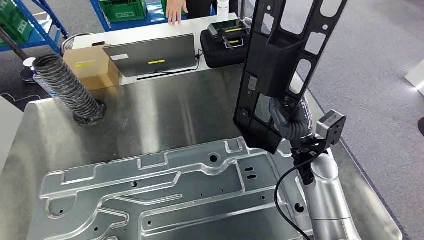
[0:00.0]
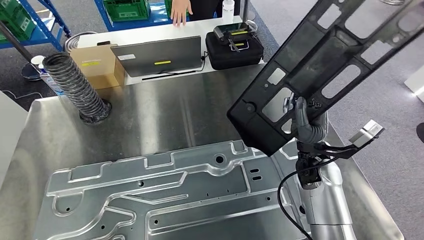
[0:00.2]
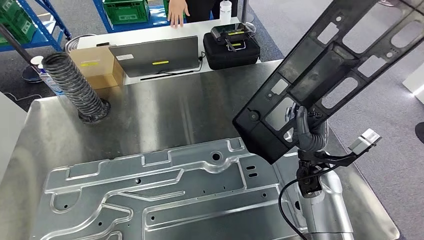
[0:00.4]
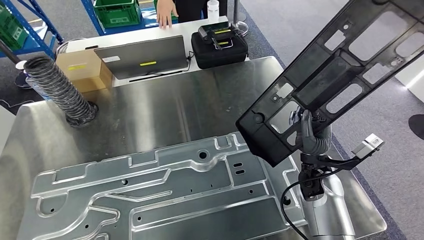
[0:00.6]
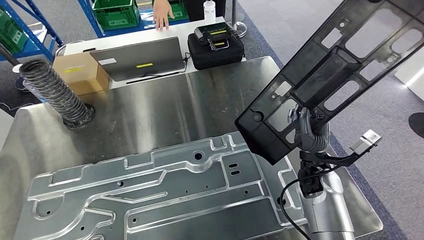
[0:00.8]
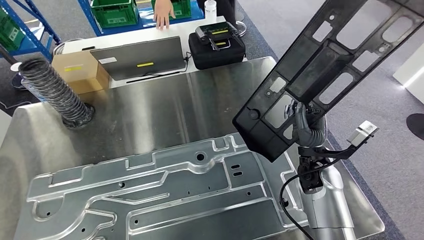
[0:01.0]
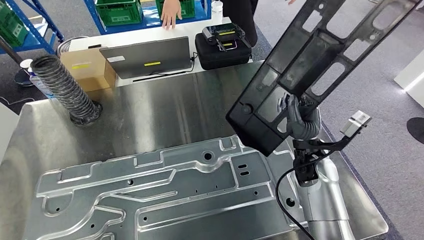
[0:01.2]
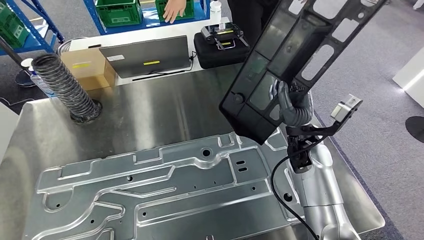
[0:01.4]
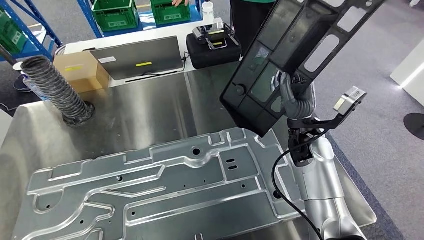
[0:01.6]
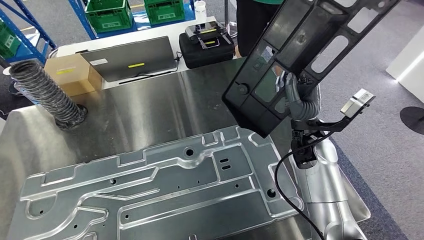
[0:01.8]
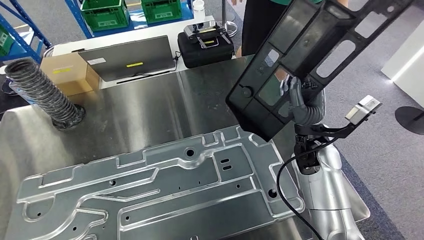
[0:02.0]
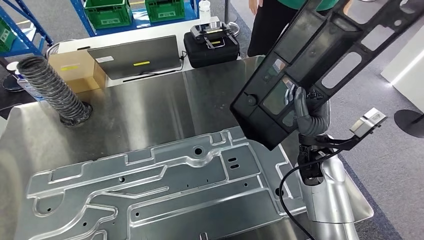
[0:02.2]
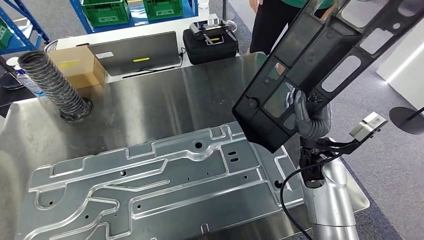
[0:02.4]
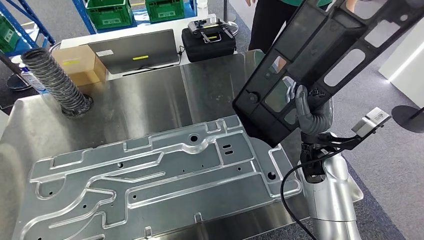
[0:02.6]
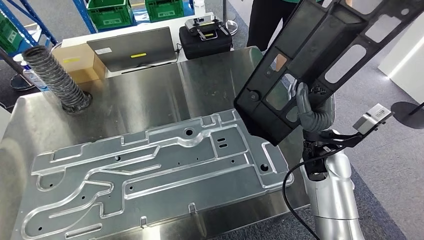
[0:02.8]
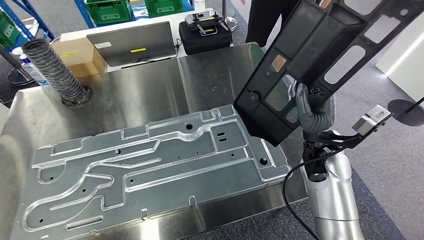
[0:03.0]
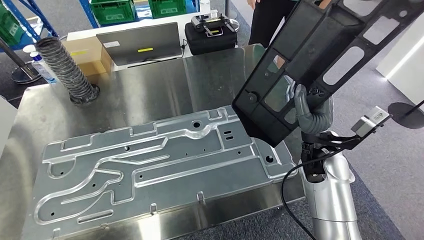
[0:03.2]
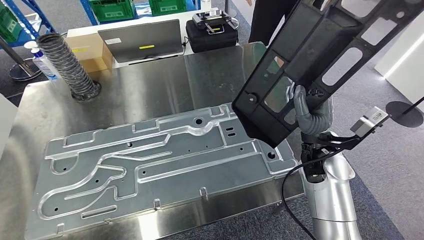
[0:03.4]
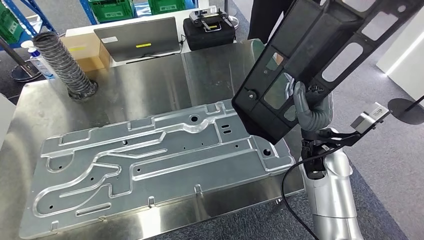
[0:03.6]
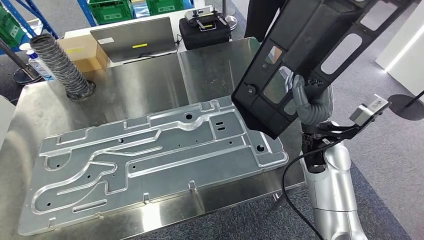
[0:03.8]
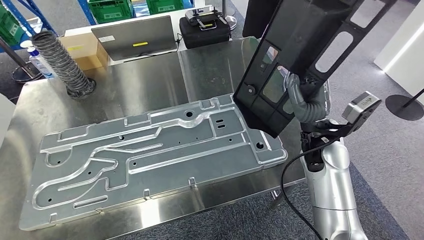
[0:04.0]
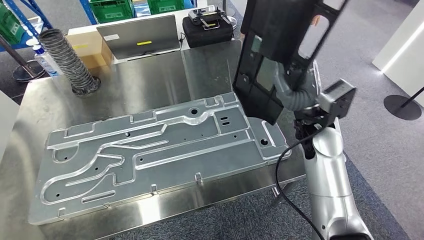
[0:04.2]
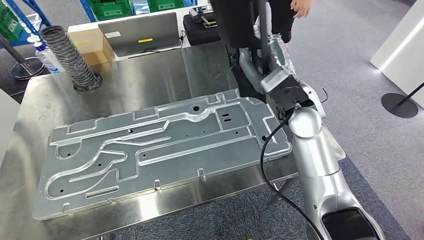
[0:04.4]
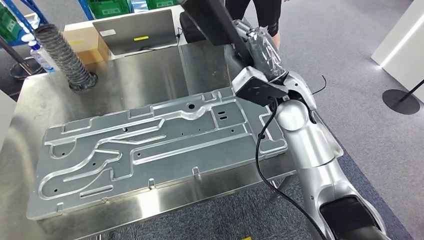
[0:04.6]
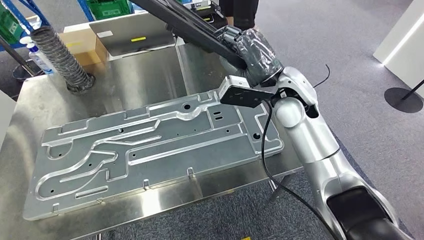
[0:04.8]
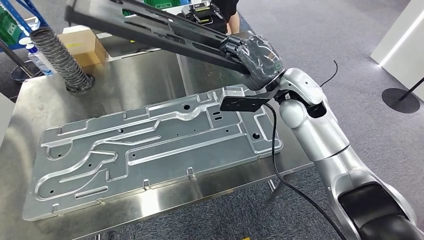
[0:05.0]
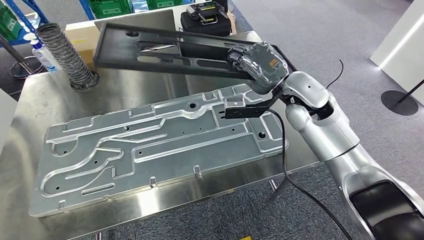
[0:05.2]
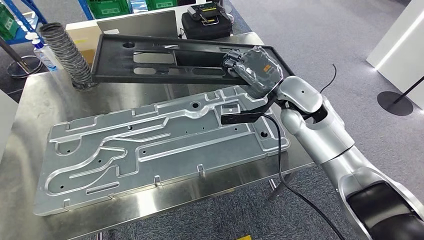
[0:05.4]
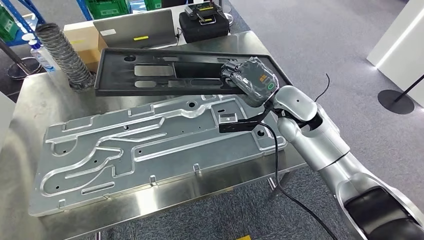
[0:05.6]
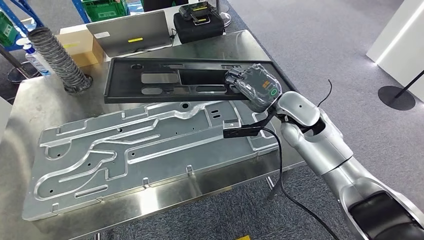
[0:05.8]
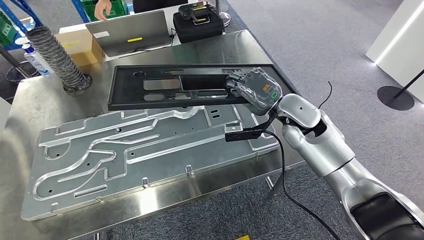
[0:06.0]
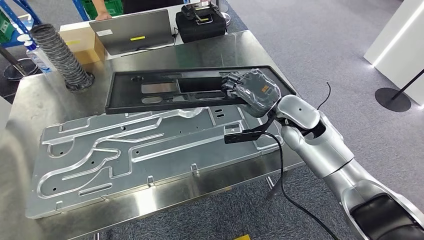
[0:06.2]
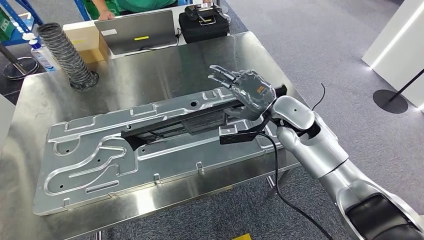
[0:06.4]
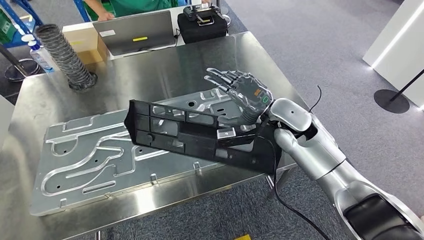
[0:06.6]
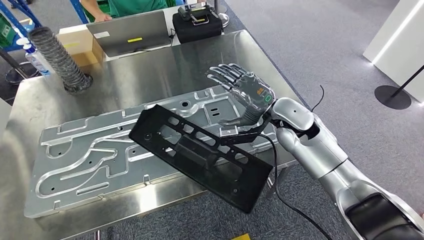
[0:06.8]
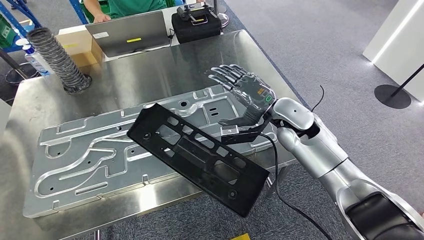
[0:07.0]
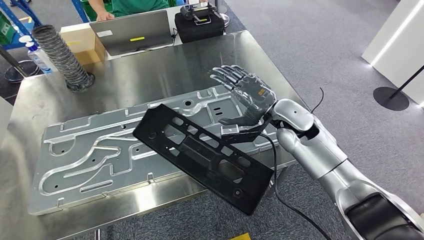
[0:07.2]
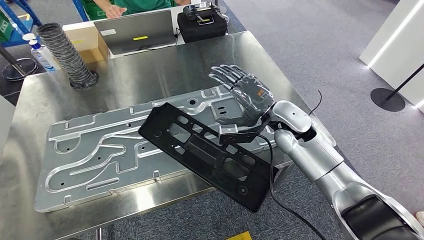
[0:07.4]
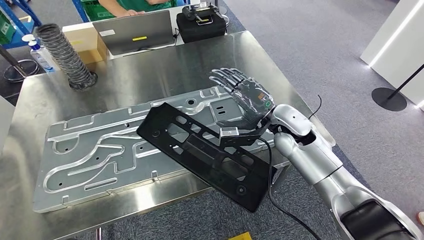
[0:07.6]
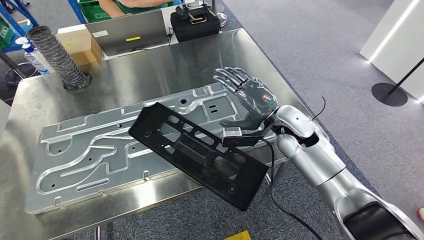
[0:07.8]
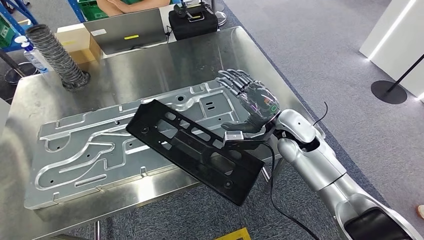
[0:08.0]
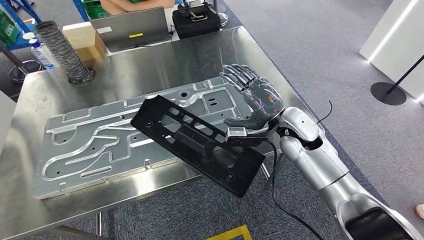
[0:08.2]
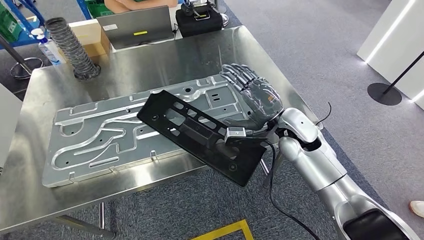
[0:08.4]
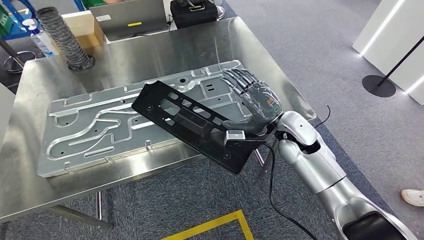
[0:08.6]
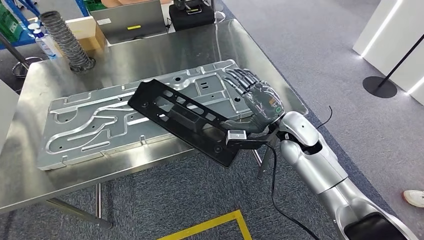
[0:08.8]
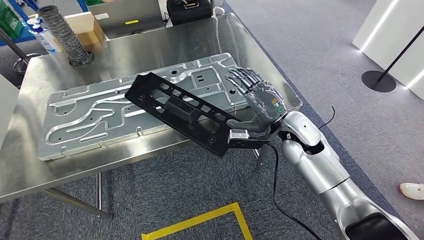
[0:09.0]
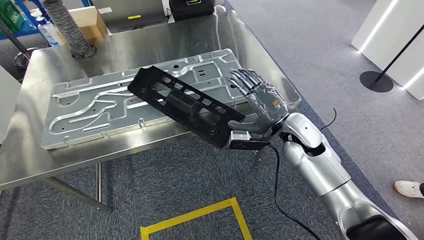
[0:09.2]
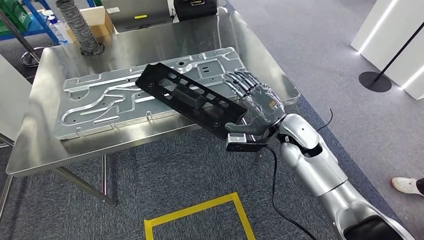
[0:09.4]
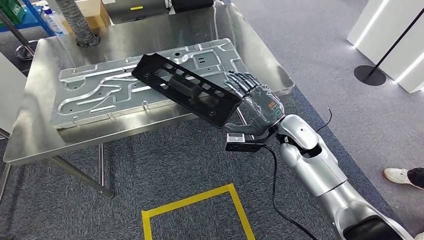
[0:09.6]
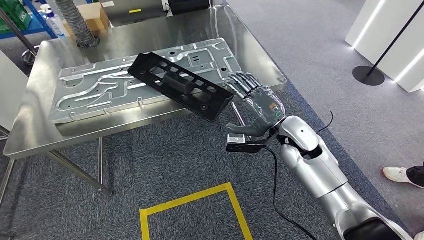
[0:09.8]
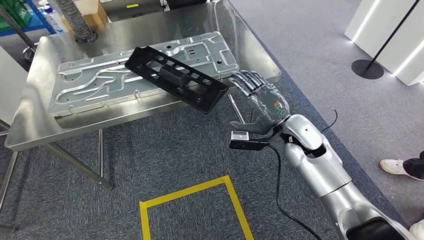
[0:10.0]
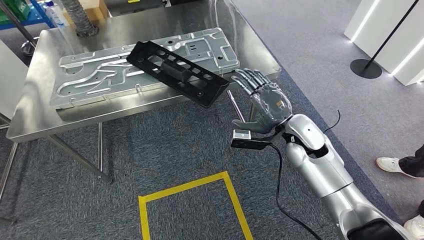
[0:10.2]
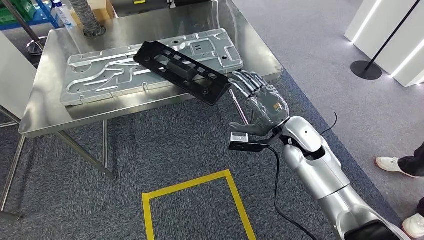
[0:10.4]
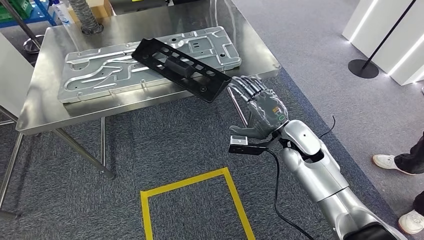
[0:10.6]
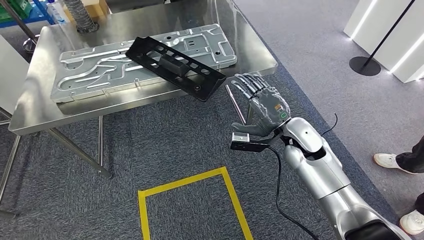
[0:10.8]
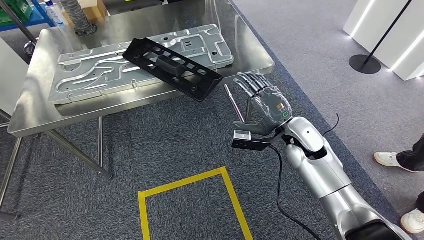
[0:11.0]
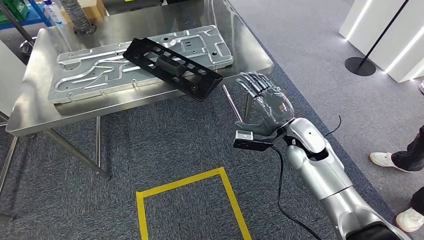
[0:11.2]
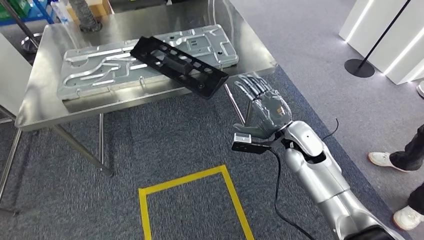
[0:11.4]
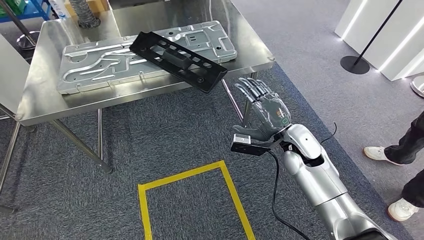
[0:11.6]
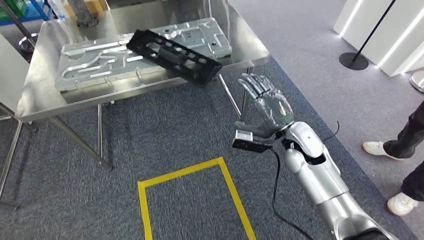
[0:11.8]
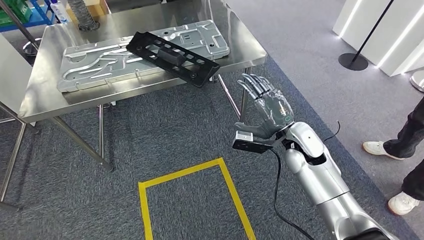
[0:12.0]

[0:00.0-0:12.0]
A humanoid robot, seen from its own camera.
Step, 0:00.8 to 0:08.2: Insert the large material into the corresponding slot on the workbench.

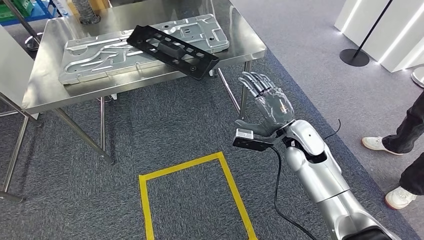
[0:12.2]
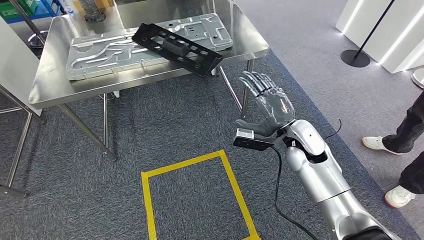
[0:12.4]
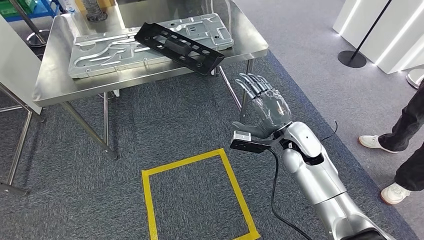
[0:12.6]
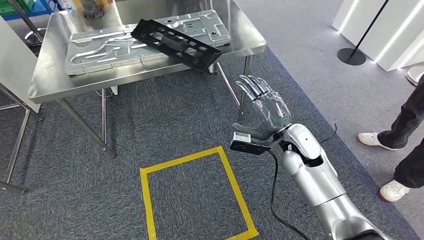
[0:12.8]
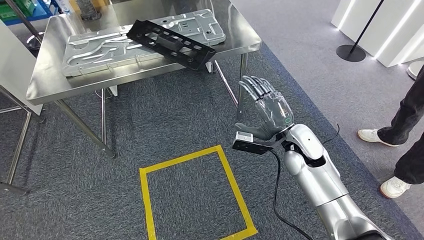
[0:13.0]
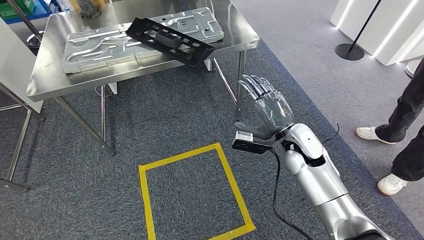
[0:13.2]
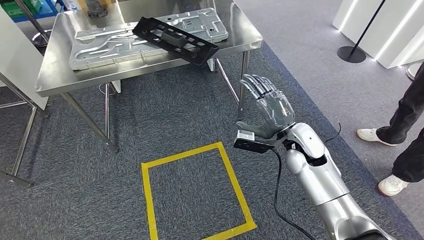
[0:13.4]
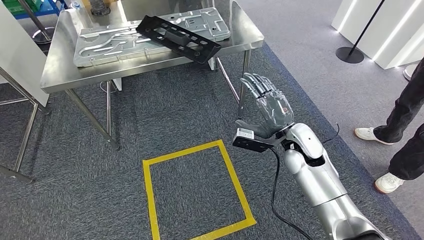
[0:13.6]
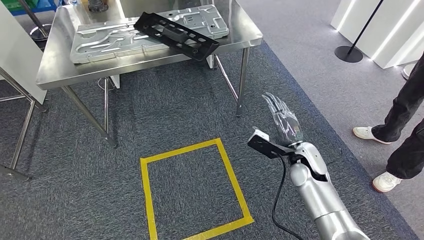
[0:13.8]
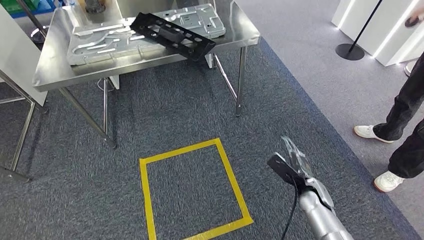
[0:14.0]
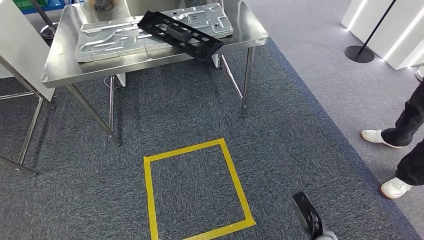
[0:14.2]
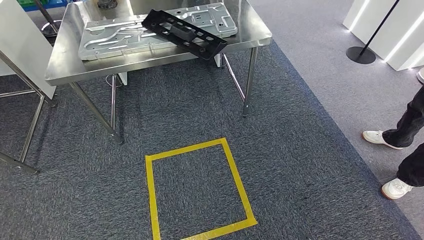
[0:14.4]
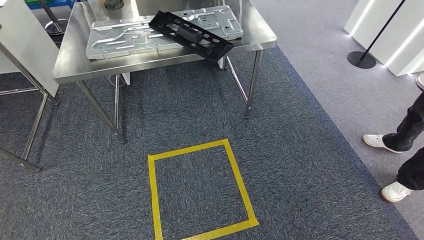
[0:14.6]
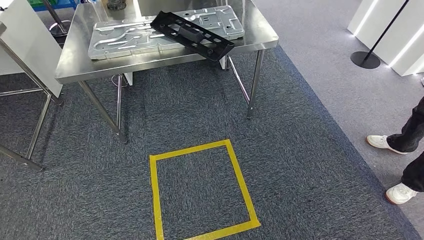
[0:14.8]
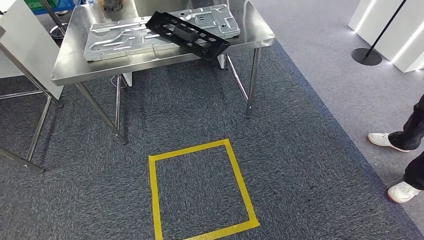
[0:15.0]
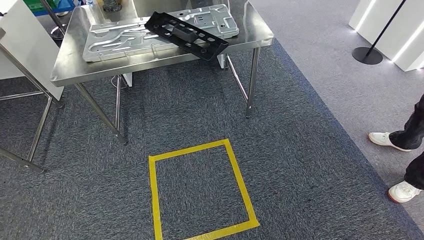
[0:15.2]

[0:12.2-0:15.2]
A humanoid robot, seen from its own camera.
Step, 0:12.2 to 0:15.2: Move to the initial position of the shelf.
